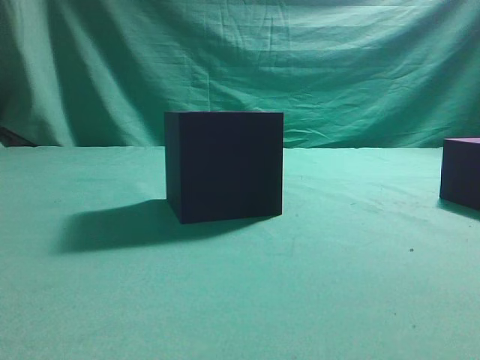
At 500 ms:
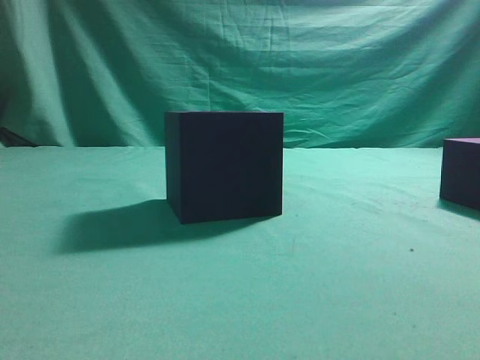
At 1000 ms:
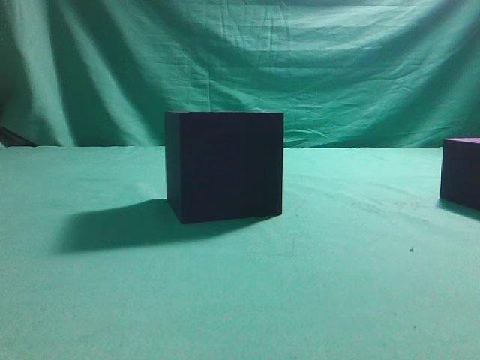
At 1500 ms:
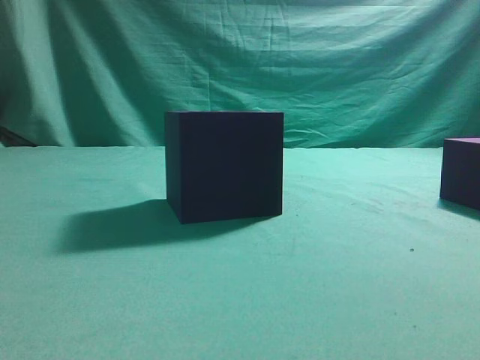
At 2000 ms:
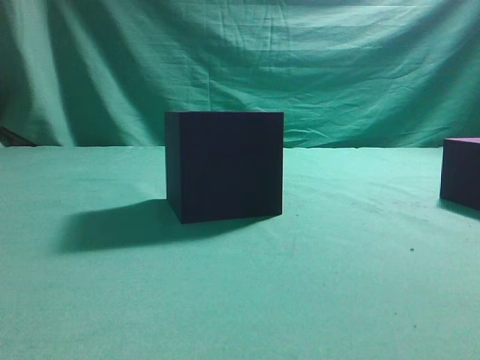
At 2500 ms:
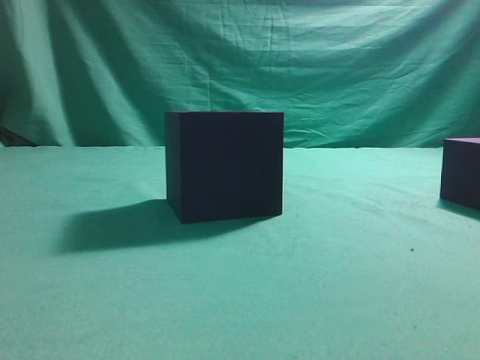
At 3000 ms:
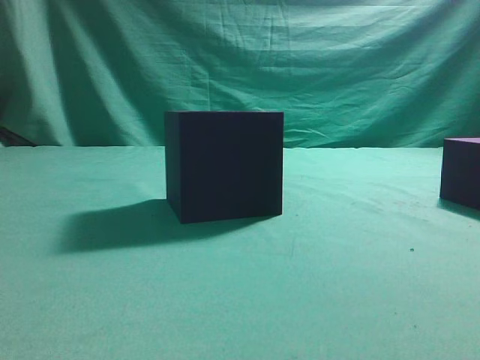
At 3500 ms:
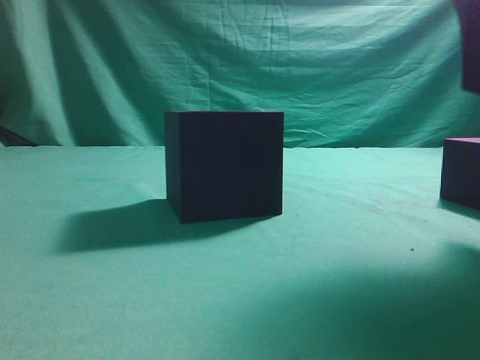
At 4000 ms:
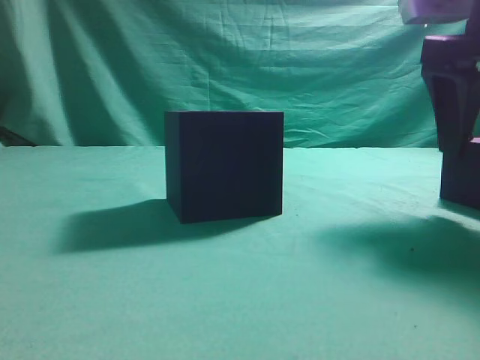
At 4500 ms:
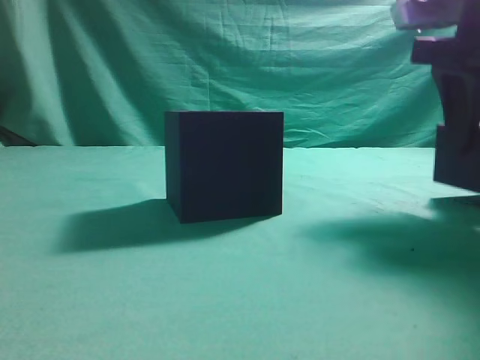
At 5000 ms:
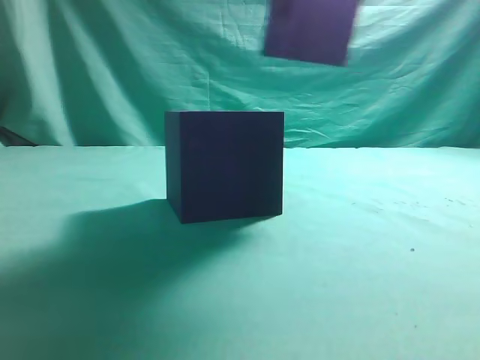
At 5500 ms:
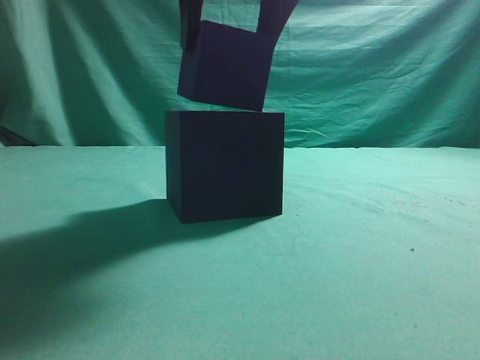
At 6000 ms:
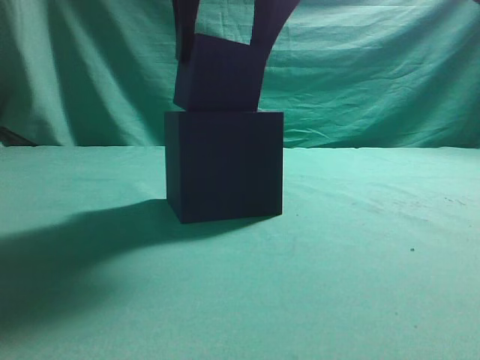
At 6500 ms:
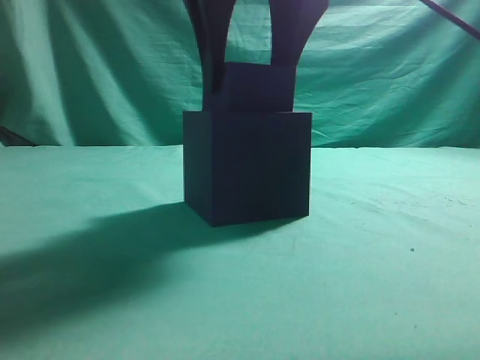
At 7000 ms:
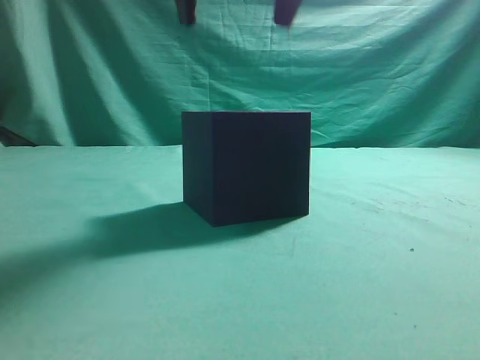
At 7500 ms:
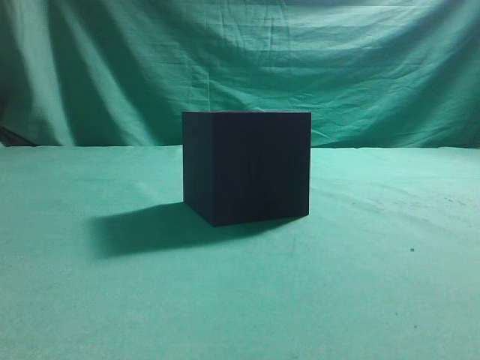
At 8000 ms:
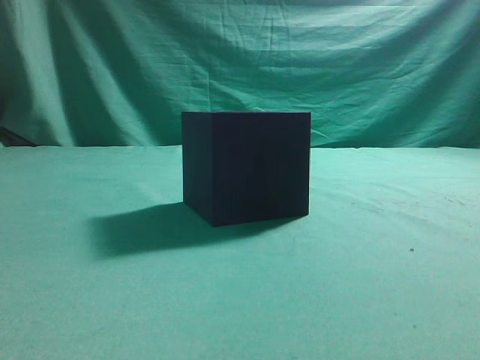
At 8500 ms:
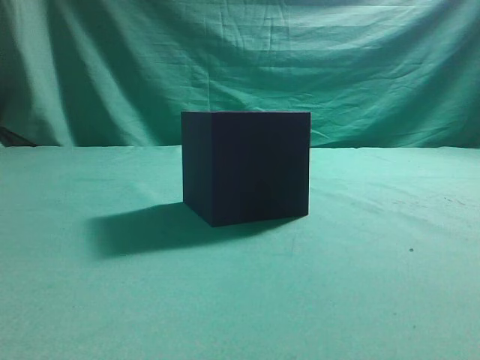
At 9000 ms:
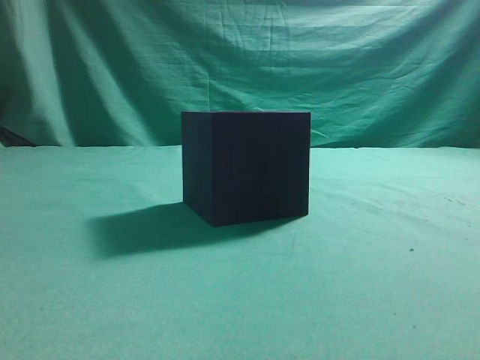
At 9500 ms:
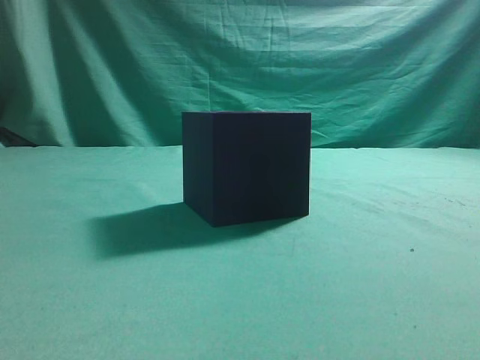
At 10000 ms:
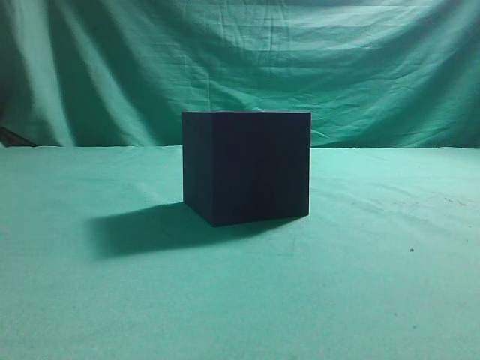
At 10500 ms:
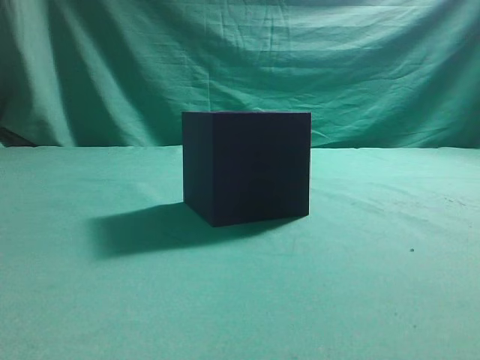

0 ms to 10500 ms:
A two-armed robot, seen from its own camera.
Task of the whole recording: pick up the cube block and place it into the cube groove.
Step, 0 ms to 4500 ms: Grasp the cube.
Step, 5000 ms to 6500 ms: Place cube into the cube-shaped recess.
2000 ms to 4000 ms: The right gripper is displaced forward by approximately 25 cm, and opens up.
4000 ms to 6500 ms: The right gripper travels to the left by about 20 cm.
6500 ms to 8500 ms: The right gripper shifts approximately 35 cm to the right, backward and upward, and closes up.
